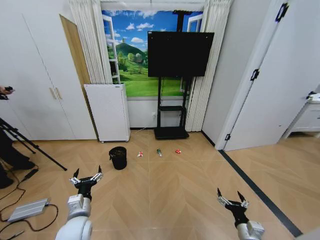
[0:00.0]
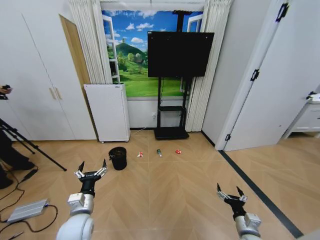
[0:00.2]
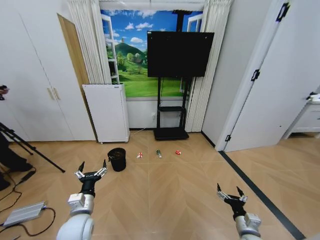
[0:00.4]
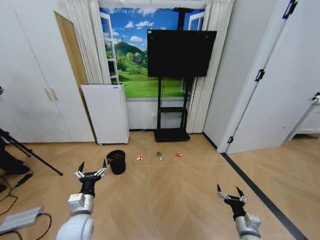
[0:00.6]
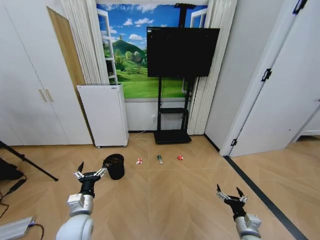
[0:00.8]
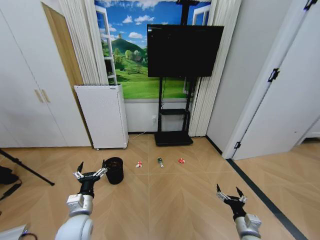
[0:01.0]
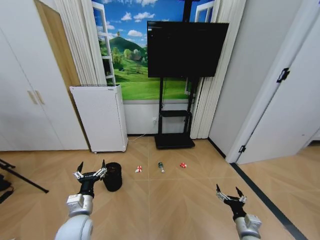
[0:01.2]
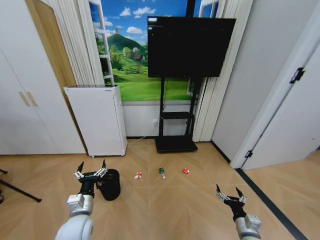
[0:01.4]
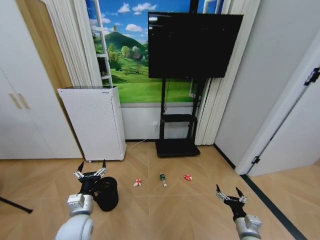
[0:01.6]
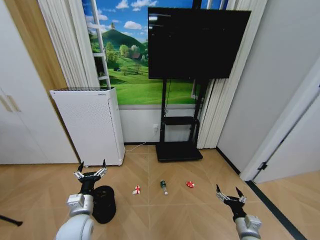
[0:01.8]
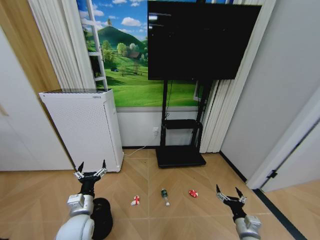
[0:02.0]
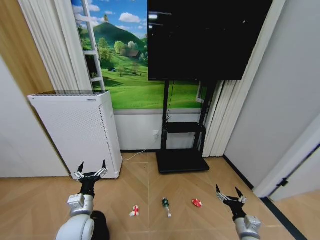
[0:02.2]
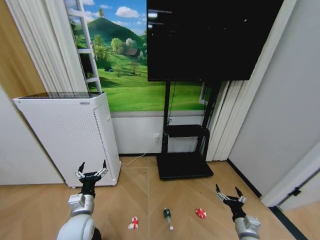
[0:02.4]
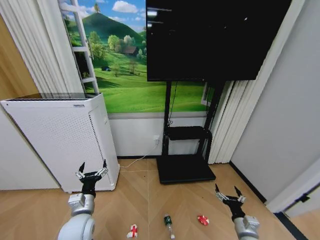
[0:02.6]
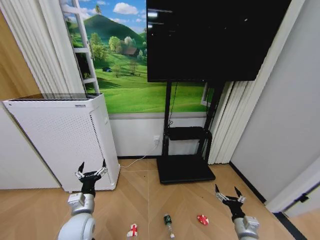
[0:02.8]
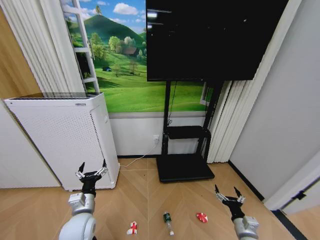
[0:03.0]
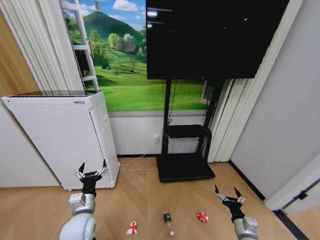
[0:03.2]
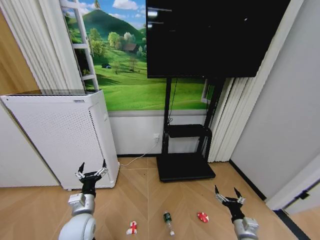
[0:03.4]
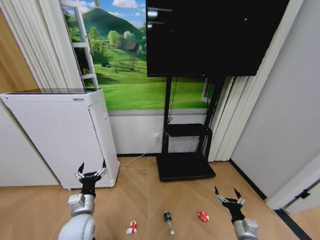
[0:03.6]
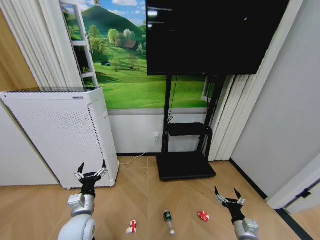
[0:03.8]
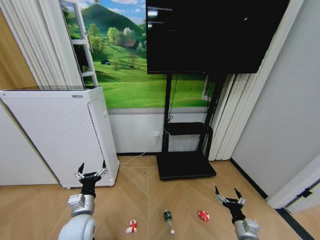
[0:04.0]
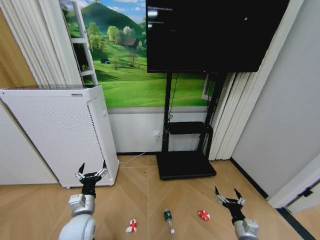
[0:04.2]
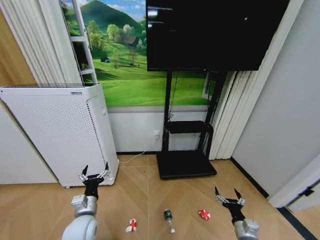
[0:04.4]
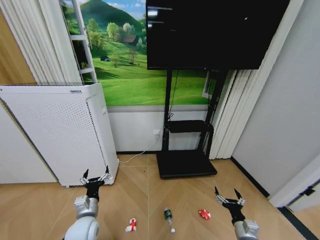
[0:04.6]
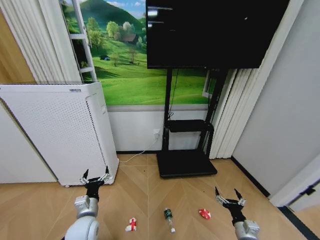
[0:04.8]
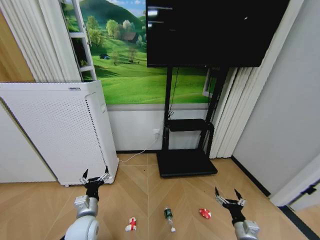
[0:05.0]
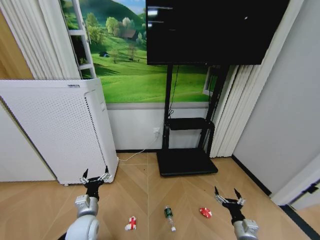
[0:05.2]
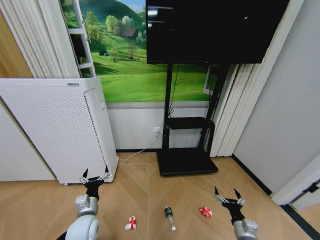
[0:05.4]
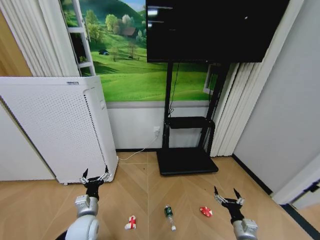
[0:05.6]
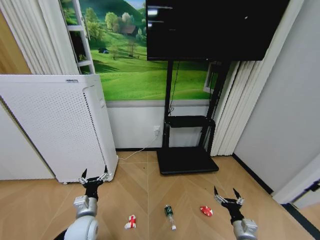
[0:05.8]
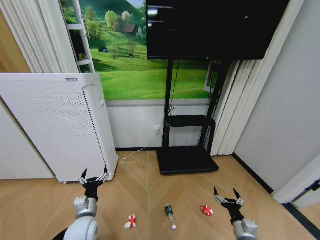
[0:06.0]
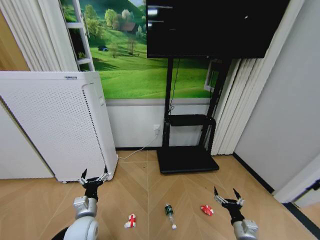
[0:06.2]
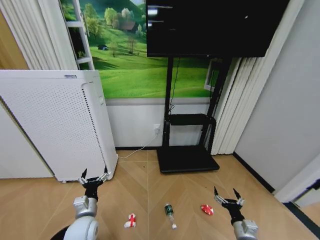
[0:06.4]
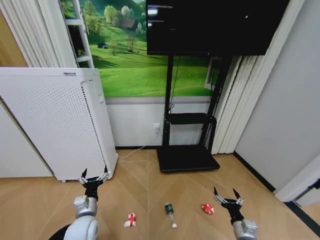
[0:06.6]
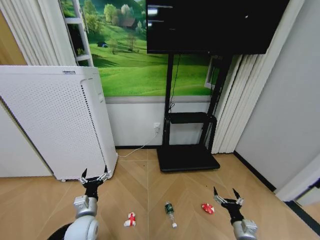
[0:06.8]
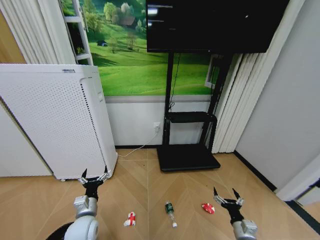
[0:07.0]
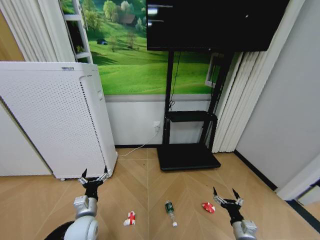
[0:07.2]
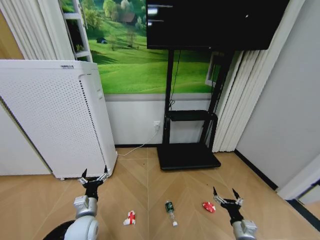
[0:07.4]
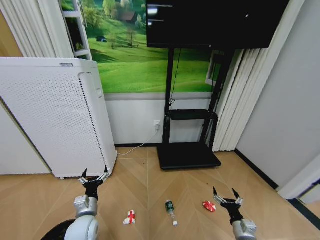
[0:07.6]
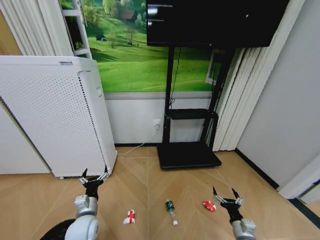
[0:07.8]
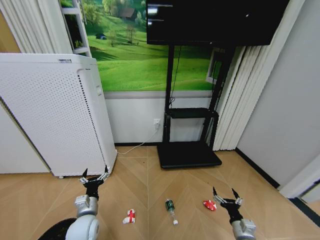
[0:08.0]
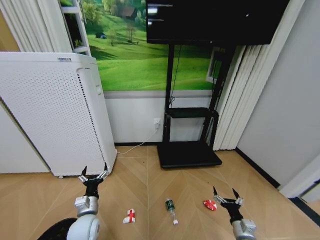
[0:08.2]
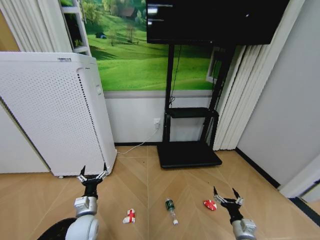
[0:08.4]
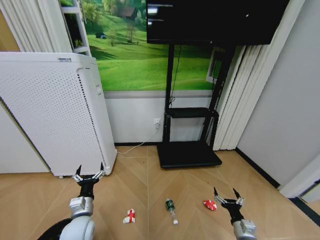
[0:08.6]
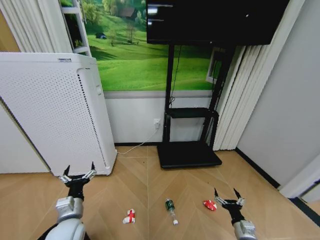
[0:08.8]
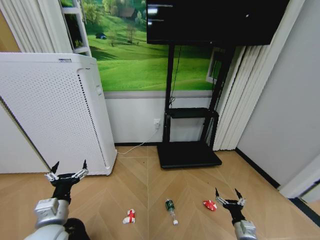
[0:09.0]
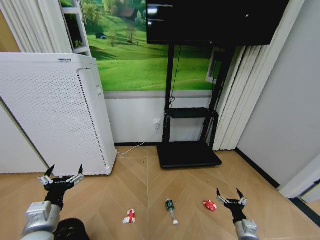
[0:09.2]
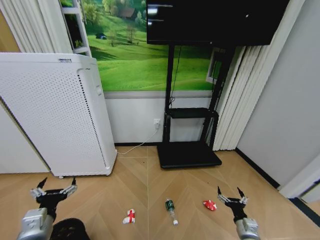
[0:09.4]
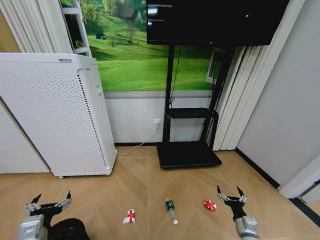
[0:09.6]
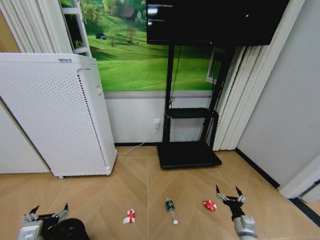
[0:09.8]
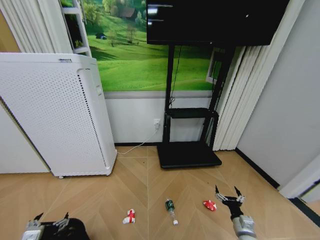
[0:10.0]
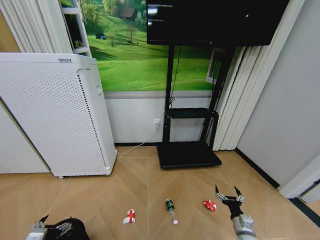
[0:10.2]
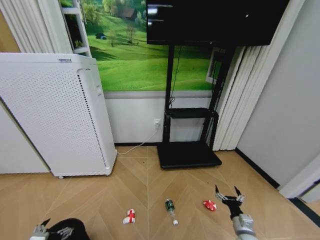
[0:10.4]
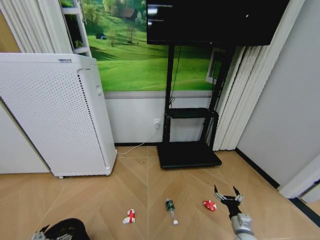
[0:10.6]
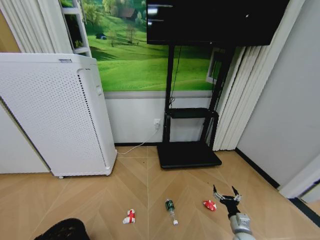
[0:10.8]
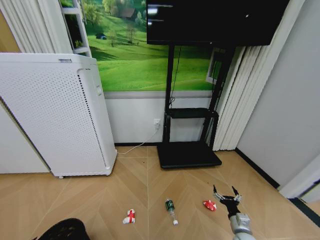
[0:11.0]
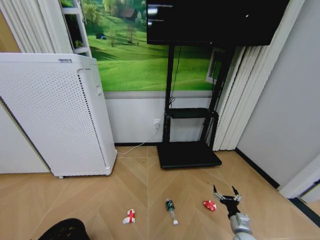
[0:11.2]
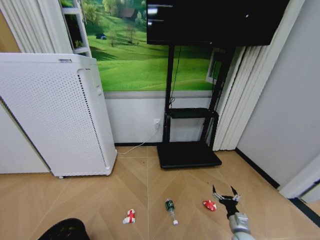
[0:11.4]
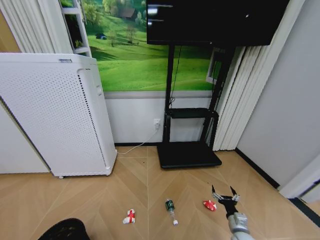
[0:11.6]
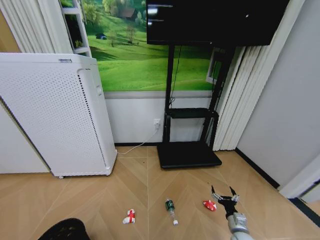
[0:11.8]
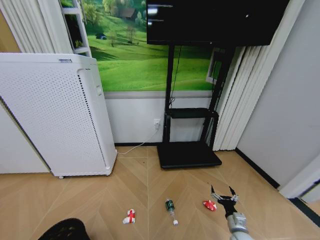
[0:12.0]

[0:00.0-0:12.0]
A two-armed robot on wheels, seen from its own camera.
Task of the whole recording: Pick up the trash bin and place the garbage on the floor into it.
0:03.0 to 0:04.4: Both grippers stay about where they are.
0:04.4 to 0:06.0: The grippers make only small movements.
0:06.0 to 0:07.6: Neither gripper changes place.
0:07.6 to 0:09.0: The left gripper heads upward and backward, covering approximately 10 cm.
0:09.0 to 0:10.4: The left gripper is displaced to the left, backward and downward by approximately 10 cm.

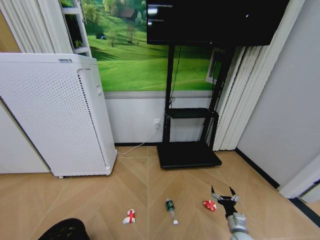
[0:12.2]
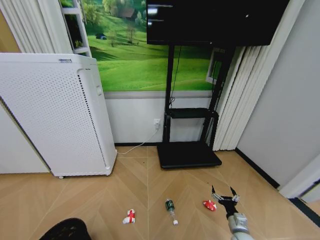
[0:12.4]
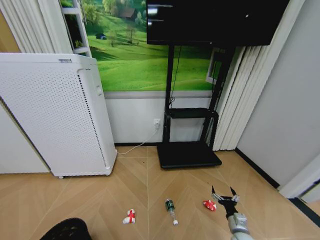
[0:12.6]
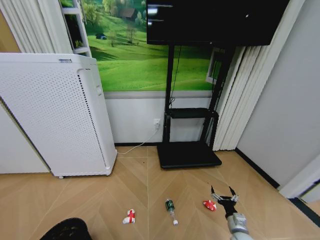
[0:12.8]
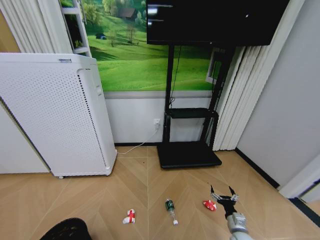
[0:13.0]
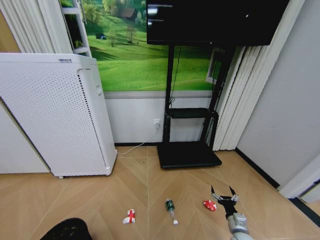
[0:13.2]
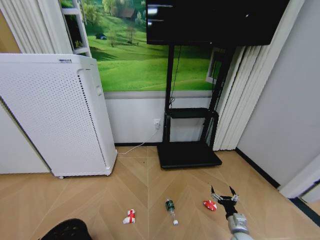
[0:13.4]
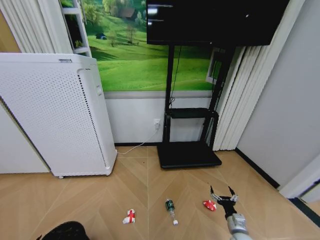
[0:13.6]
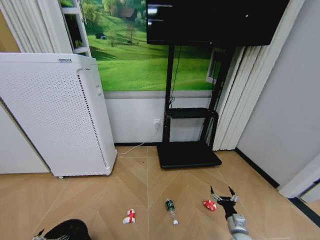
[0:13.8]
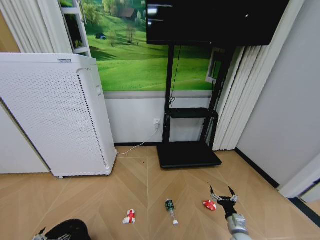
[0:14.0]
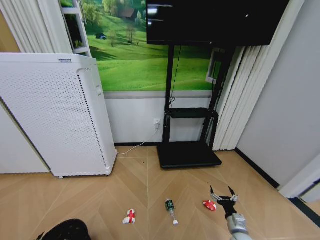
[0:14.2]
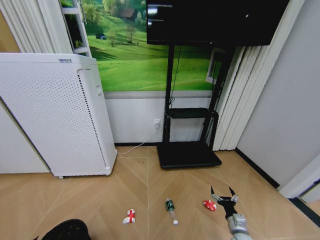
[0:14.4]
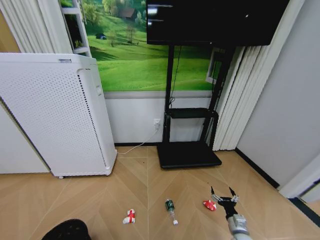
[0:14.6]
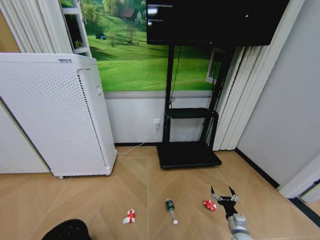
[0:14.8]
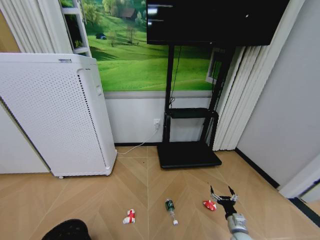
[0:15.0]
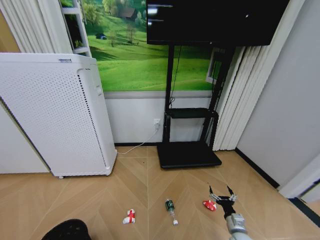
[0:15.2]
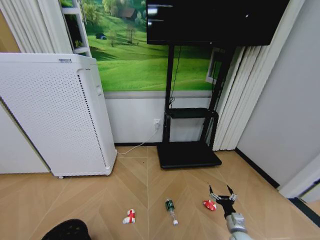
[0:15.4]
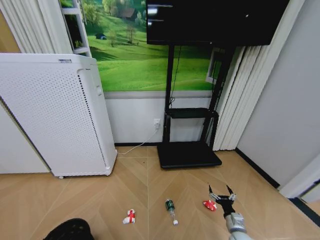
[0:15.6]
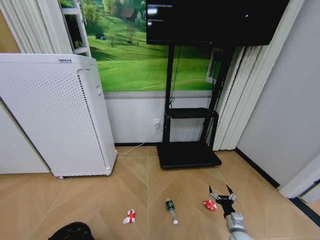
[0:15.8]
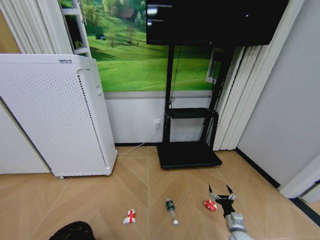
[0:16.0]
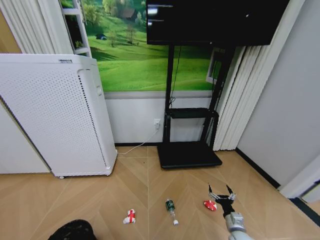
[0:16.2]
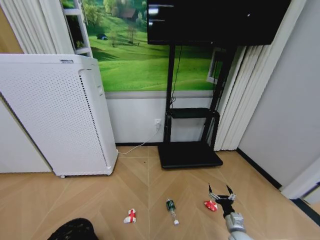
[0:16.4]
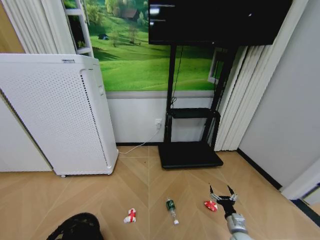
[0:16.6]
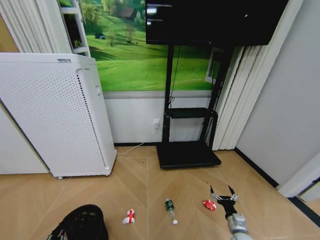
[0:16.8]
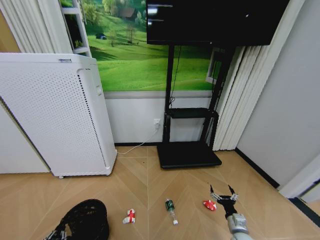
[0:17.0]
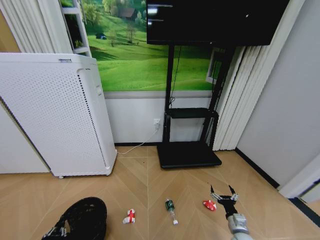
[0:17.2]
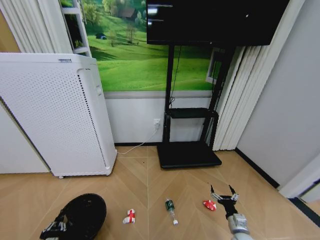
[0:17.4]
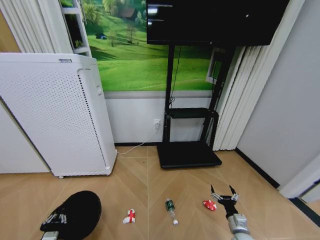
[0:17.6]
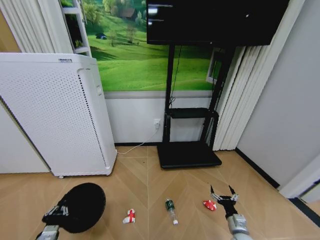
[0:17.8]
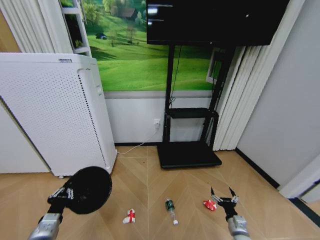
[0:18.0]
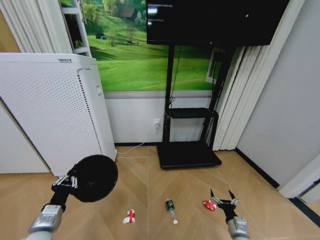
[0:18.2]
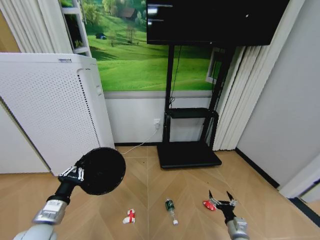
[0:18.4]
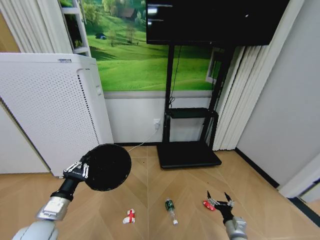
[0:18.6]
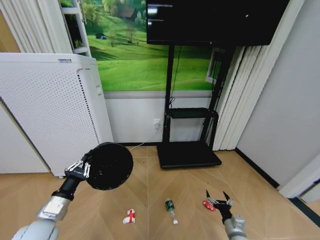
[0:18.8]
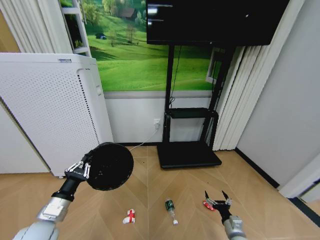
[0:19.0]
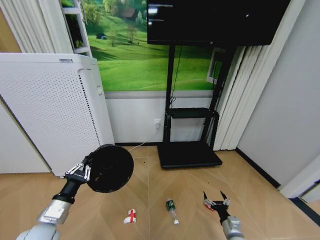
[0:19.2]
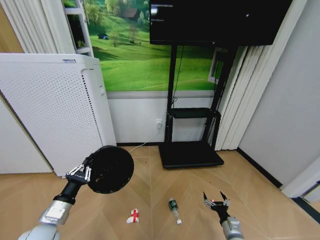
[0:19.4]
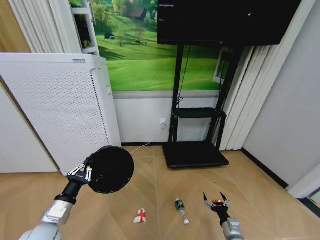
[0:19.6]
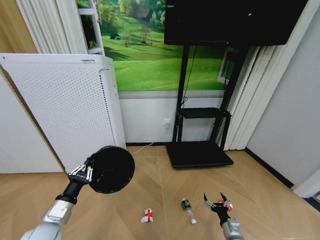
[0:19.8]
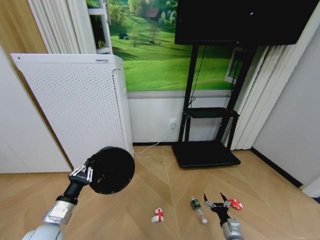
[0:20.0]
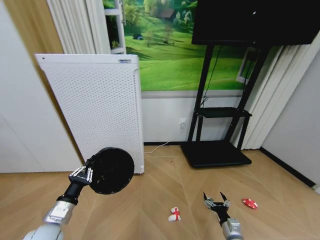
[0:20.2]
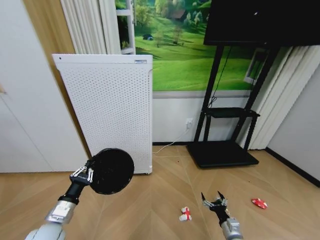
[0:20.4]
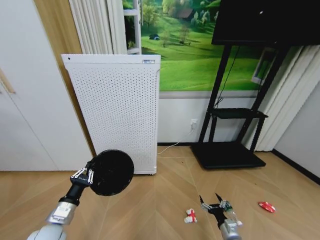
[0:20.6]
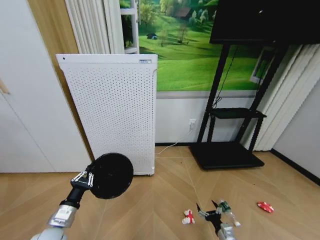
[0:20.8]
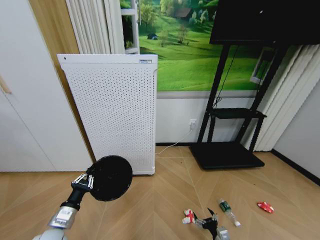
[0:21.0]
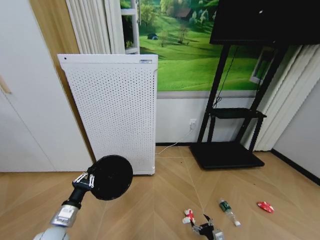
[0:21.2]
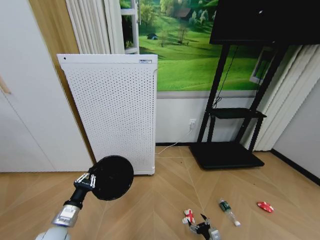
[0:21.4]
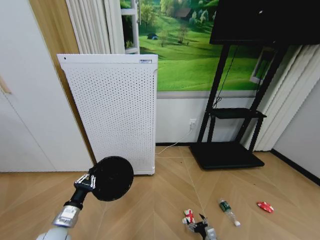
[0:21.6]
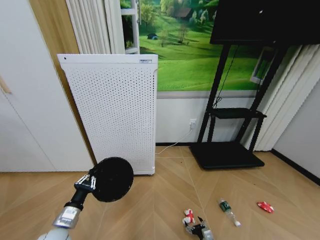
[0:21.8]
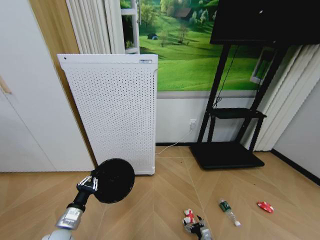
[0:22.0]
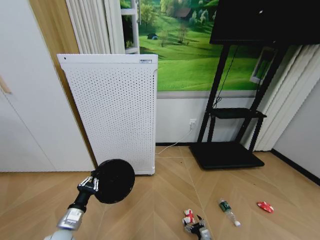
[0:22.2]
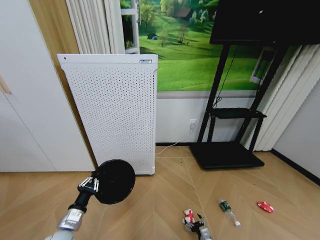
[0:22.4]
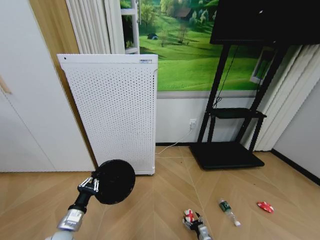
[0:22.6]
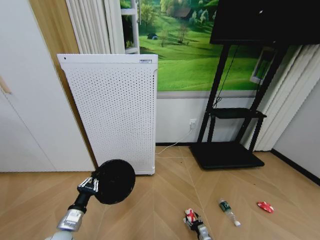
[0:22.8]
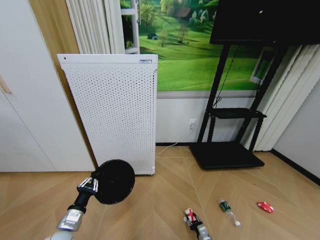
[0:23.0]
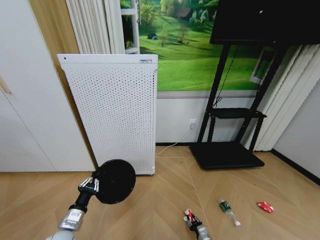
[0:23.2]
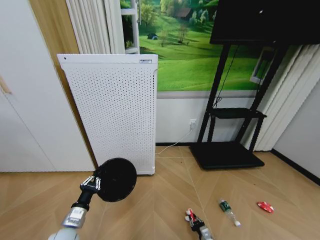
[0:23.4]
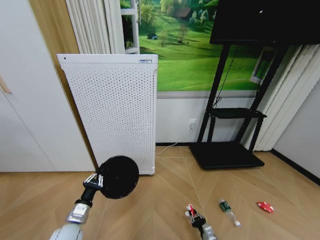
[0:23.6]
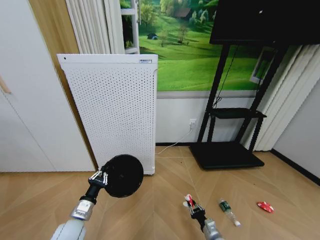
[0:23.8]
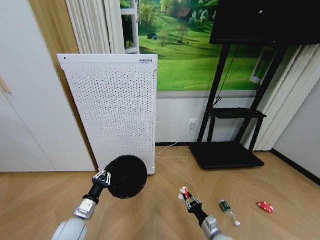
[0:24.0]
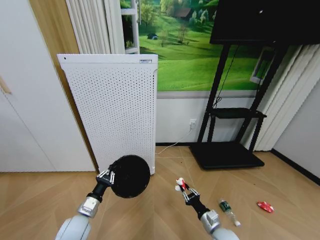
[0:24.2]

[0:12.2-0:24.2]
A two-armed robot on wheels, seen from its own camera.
Task of the whole recording: Pick up the trash bin and place the garbage on the floor into it.
0:15.2 to 0:16.6: The left gripper closes.
0:16.6 to 0:18.2: The left gripper heads upward and forward, covering about 20 cm, and closes.
0:19.8 to 0:21.2: Both grippers move downward, about 5 cm.
0:21.2 to 0:22.6: The right gripper is displaced downward by about 10 cm.
0:22.6 to 0:24.2: The left gripper shifts by approximately 5 cm. Meanwhile the right gripper shifts roughly 20 cm upward, and closes up.
